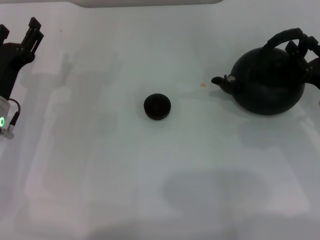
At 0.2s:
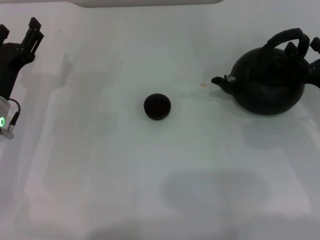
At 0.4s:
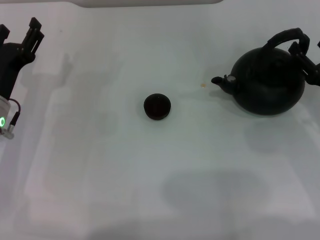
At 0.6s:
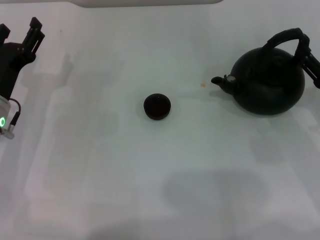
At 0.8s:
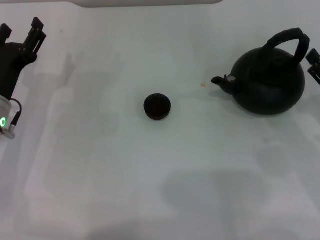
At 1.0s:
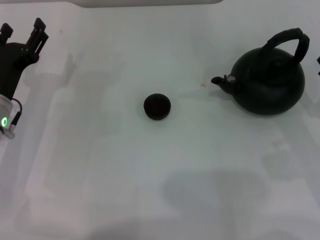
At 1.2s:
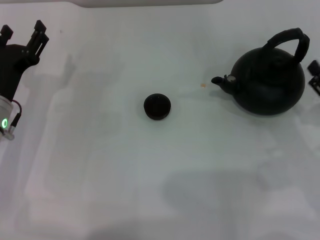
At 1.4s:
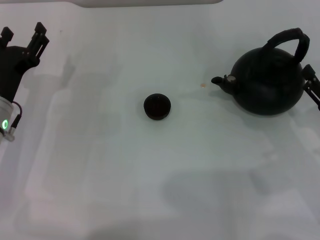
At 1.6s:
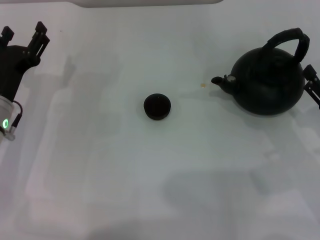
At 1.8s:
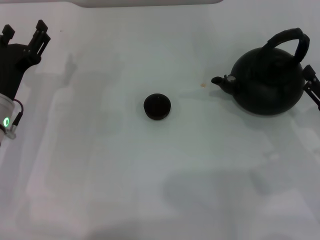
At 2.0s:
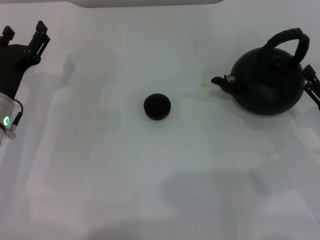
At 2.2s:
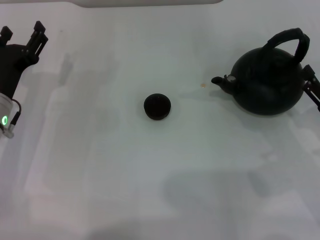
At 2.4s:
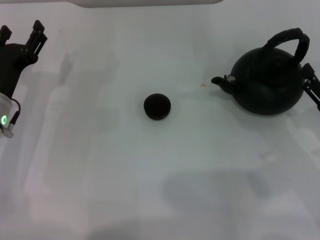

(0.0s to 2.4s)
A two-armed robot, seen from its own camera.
Task of the whole recording: Grasp the handle of the teapot with one hand and pour tea into the teacup.
0.0s - 1.2s: The right gripper moves backward, about 5 cm, and opens.
1.2s - 2.4s: Both grippers stay put.

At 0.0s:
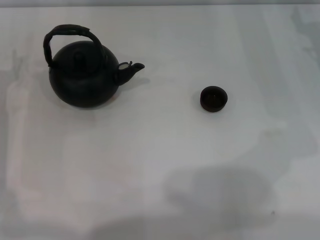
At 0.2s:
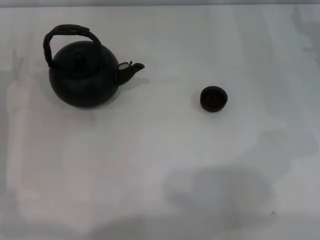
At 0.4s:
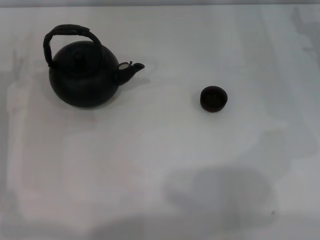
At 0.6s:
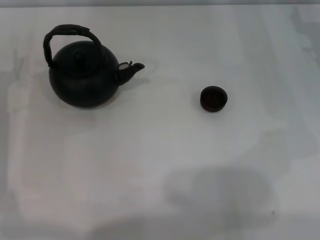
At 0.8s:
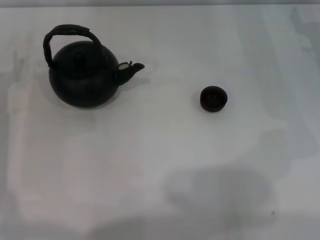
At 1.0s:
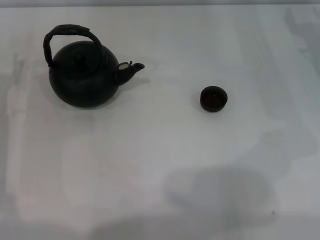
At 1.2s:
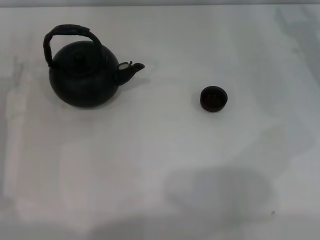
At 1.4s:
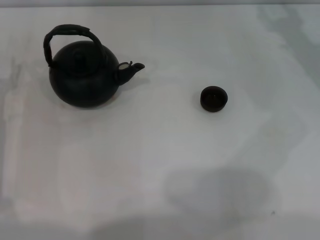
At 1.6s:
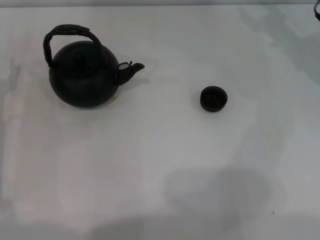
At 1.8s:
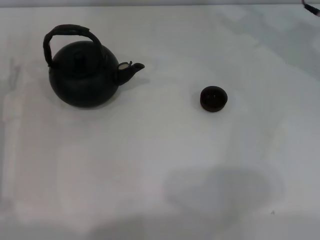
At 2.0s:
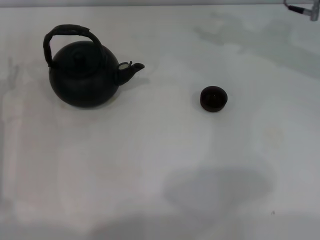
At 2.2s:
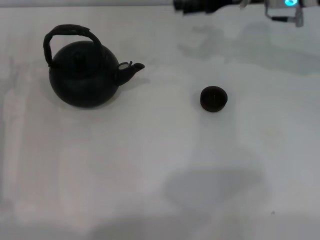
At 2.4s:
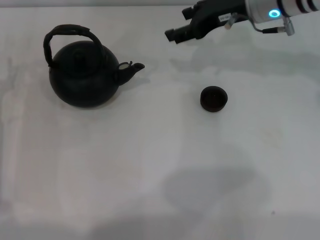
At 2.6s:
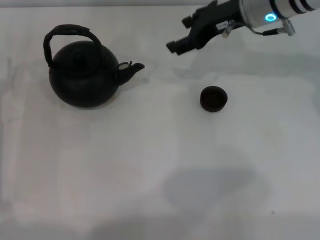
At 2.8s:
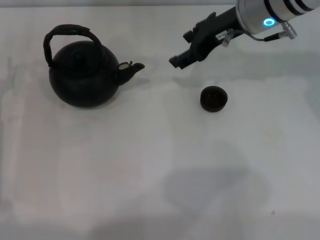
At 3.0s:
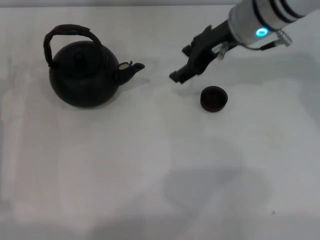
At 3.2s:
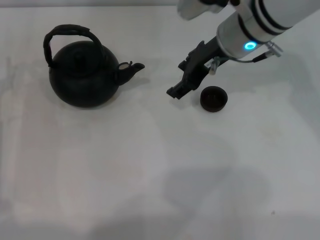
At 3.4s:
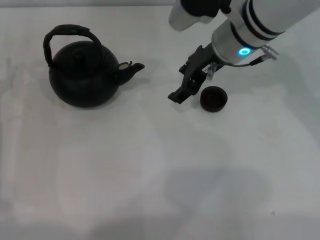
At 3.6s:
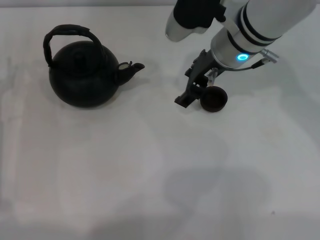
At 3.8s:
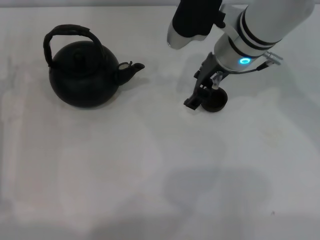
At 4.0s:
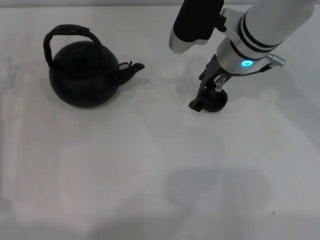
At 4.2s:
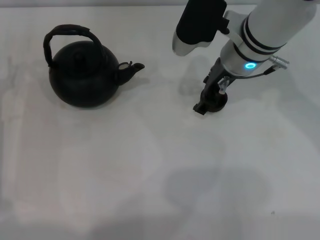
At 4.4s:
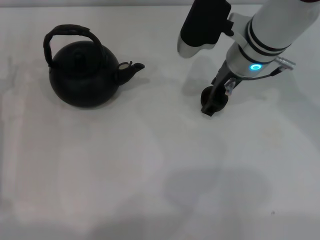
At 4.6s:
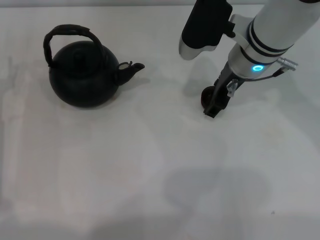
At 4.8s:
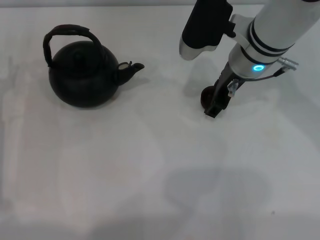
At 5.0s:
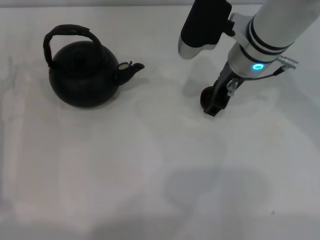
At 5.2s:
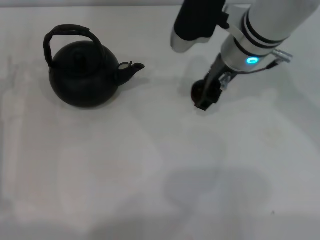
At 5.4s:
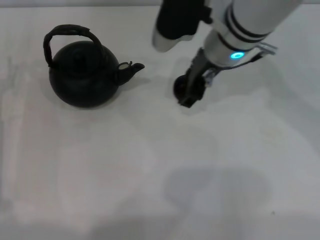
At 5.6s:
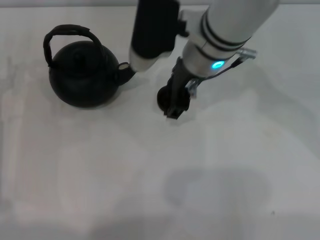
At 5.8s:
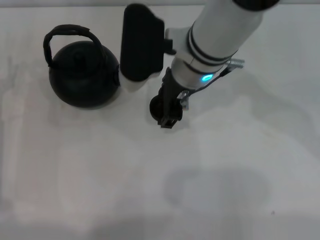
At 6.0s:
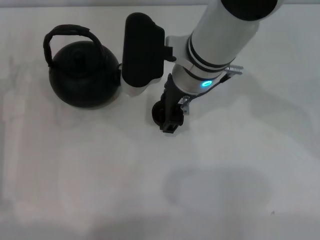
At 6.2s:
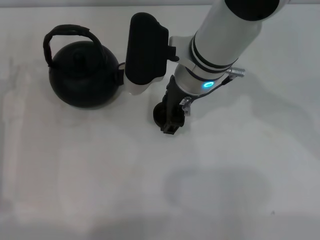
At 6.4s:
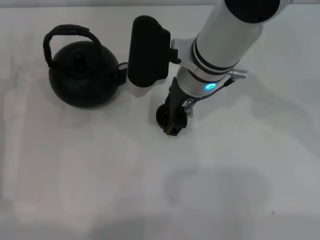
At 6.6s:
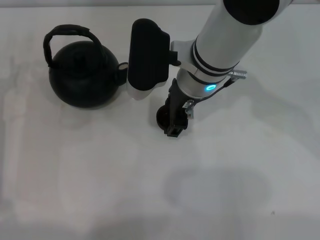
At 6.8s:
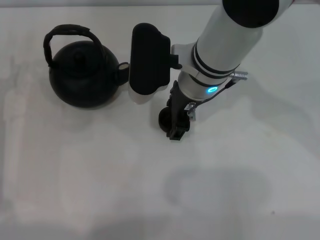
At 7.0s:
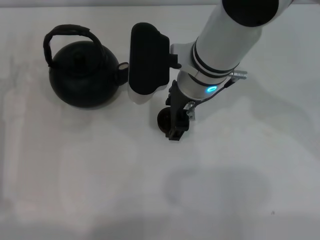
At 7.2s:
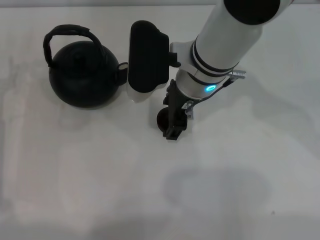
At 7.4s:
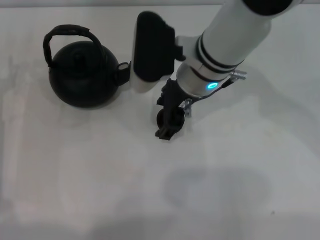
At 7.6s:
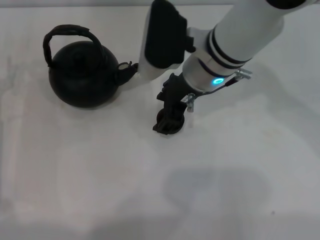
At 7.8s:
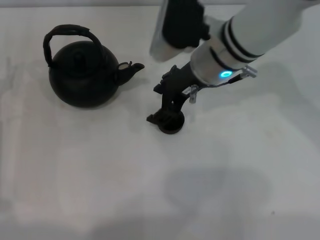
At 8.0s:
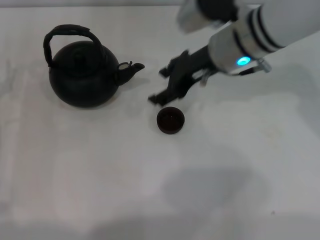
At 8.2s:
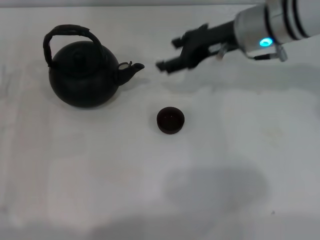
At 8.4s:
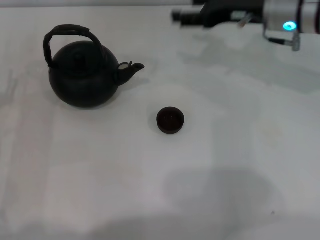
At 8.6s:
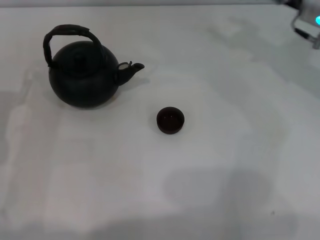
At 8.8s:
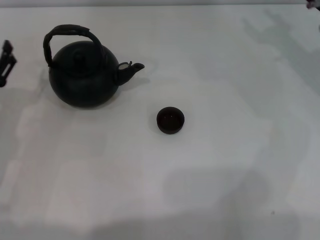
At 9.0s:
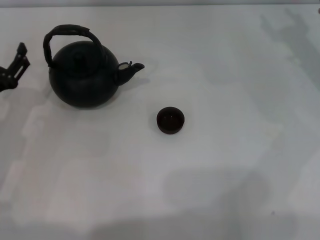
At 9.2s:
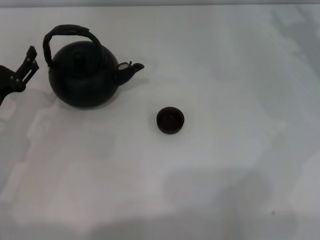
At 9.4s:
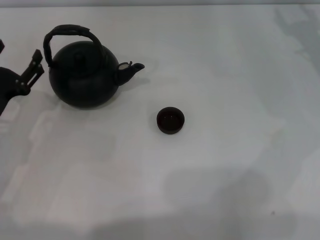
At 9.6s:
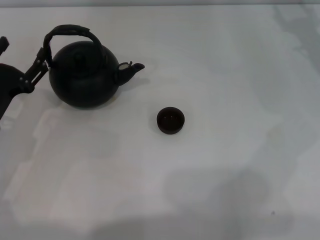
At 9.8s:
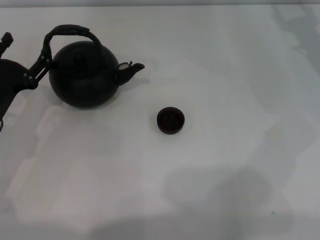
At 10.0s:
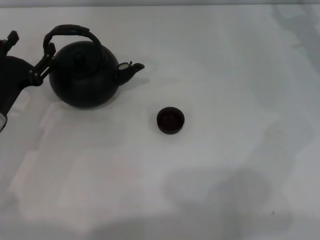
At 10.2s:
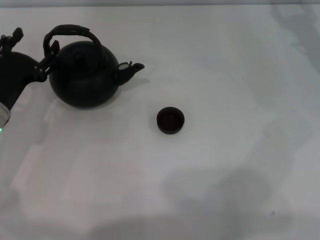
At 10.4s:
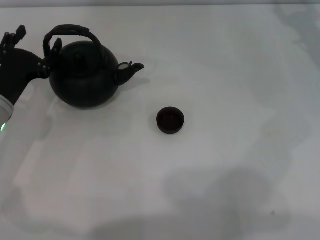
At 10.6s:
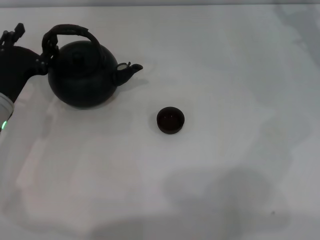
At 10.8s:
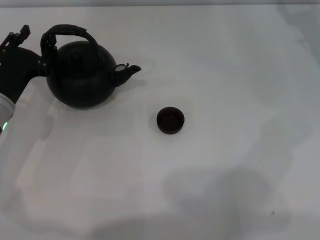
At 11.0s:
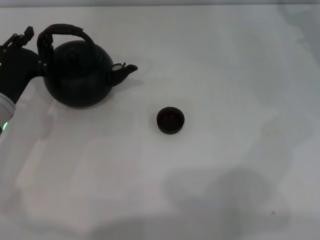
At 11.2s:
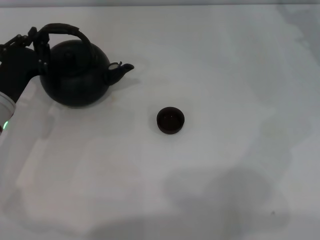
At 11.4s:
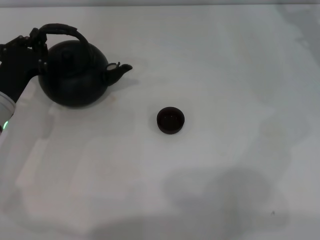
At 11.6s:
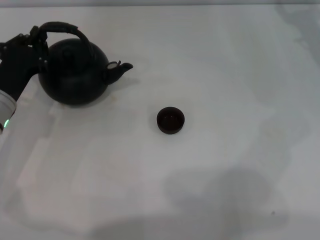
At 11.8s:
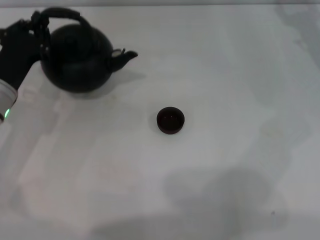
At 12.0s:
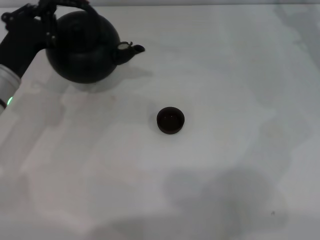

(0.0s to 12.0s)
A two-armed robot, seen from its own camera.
Task of the whole recording: Grasp the handle of the teapot with one hand and pour tea into the teacup.
Step, 0.0s - 5.0s: Pick up the teacup with the right gripper.
Step, 5.2s - 7.8s: Place the teacup in the center of view with the right gripper.
Step, 8.0s - 12.0s: Pick up the teapot with the left gripper.
1.6s - 3.0s: The right gripper is displaced to the left by about 15 cm.
4.4s - 6.0s: The right gripper is displaced to the left by approximately 10 cm.
6.0s - 7.6s: There are only small adjustments of the grippers.
7.6s - 9.0s: The right gripper heads to the right, covering about 25 cm.
9.0s - 10.4s: The grippers make only small movements.
10.4s - 12.0s: The left gripper closes up.

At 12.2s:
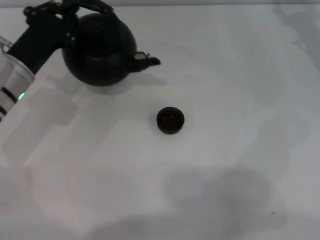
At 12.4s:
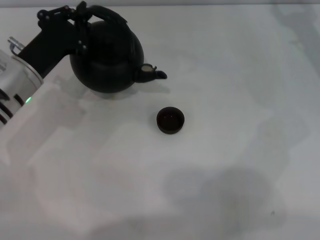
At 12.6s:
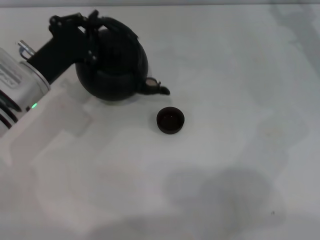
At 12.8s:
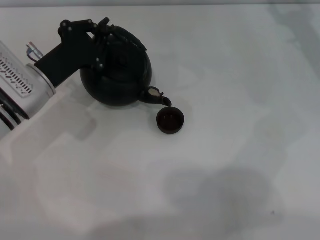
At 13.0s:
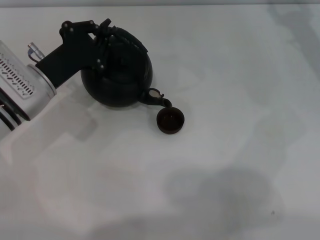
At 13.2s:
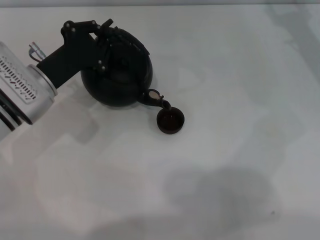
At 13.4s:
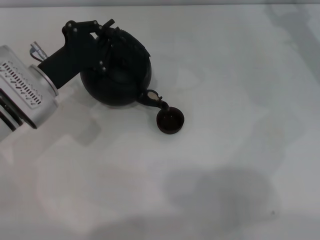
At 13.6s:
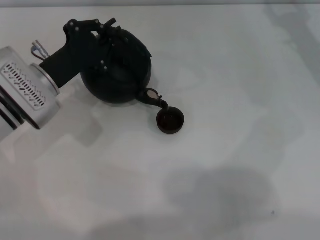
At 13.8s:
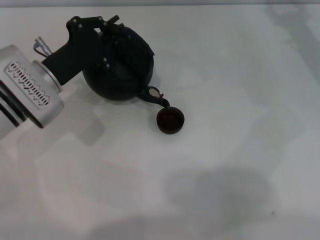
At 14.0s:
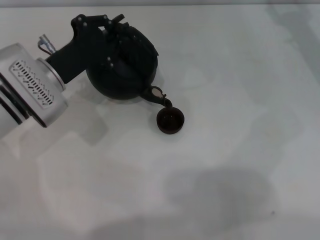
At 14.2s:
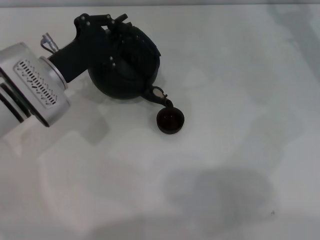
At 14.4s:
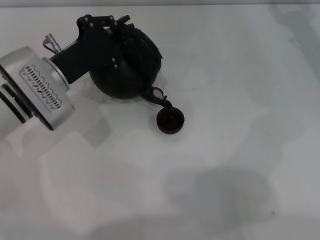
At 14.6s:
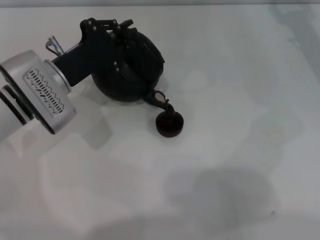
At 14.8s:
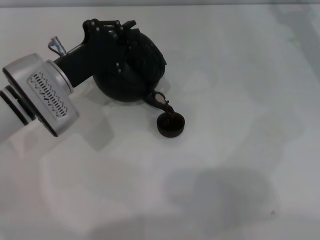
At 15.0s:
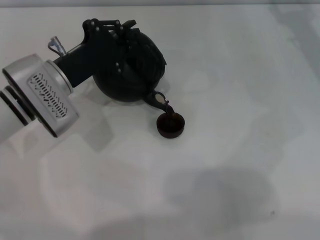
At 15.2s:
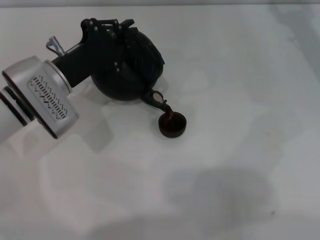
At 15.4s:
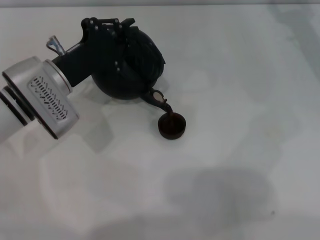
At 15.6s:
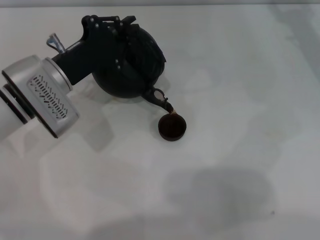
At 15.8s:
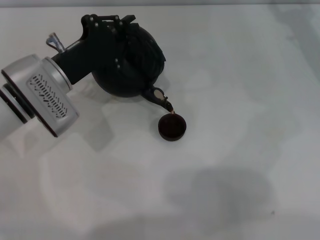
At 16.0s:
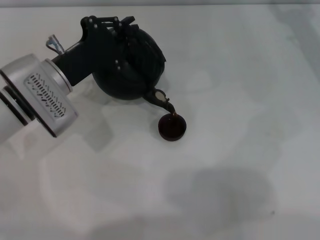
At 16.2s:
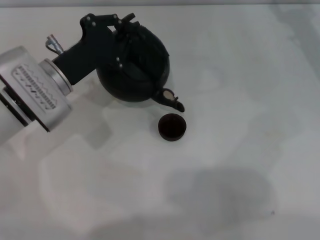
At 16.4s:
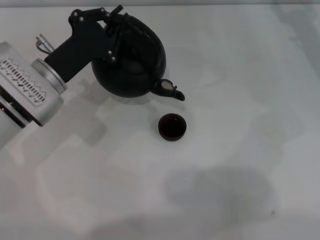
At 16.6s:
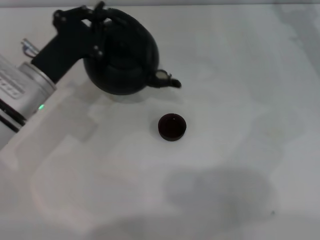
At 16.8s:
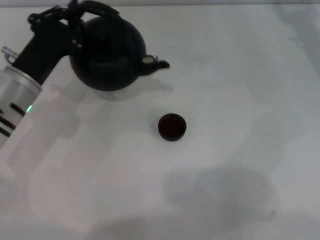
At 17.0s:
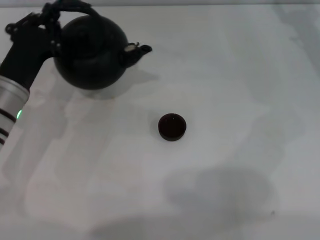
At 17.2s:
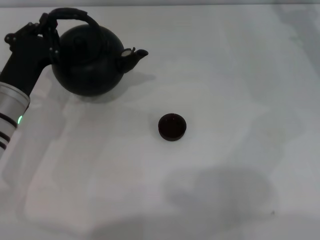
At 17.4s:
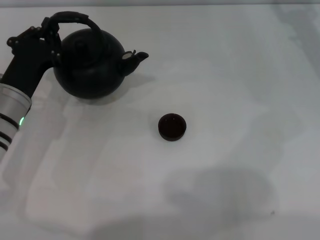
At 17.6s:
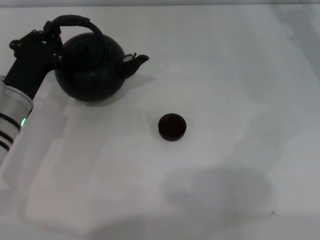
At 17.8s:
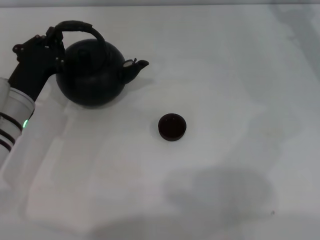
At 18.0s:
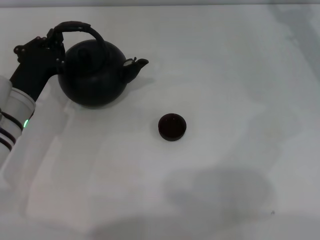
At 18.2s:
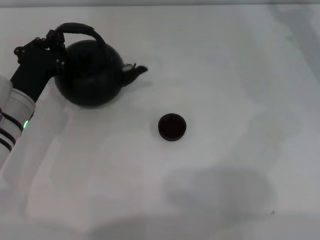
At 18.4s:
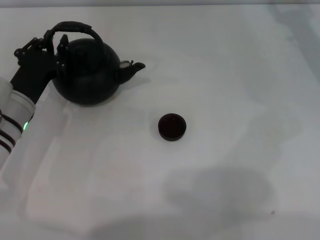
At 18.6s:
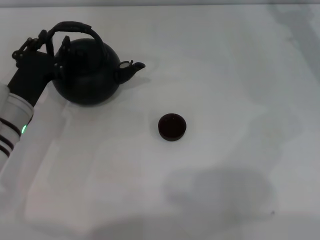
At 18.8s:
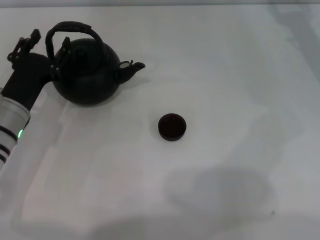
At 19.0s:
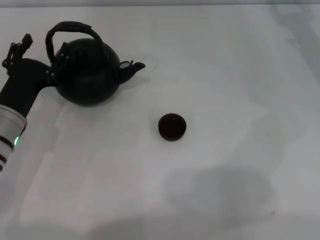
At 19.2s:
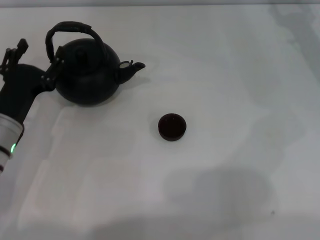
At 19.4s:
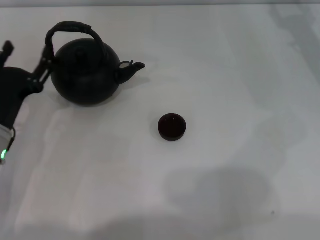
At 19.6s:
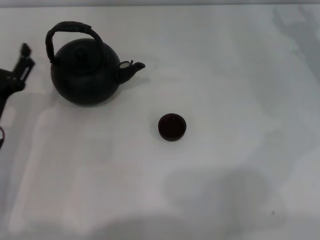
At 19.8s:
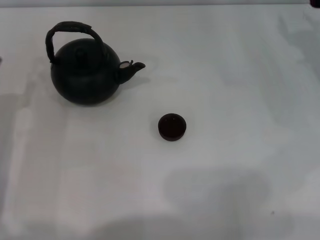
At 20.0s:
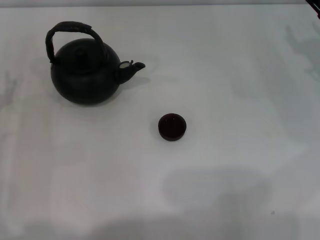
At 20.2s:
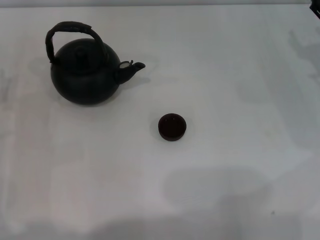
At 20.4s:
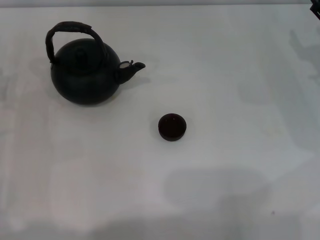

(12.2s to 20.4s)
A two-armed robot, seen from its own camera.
Task of the whole recording: Grasp the handle of the teapot with one hand and pour tea into the teacup.
Step, 12.2s - 16.6s: Pour tea into the teacup with the left gripper.
Step, 16.8s - 19.4s: Put down the teapot with the left gripper.
13.8s - 15.4s: The grippers make only small movements.
15.4s - 17.2s: The left gripper moves roughly 5 cm.
17.2s - 18.8s: The left gripper opens its fingers.
18.8s - 20.4s: The left gripper travels to the left by approximately 10 cm, and opens up.
